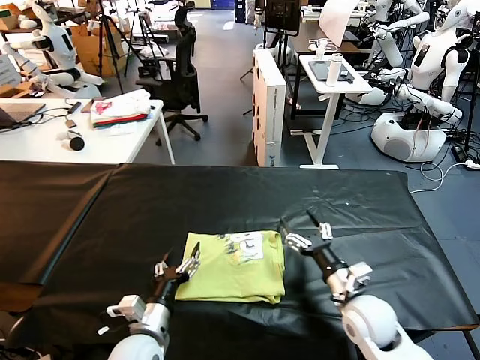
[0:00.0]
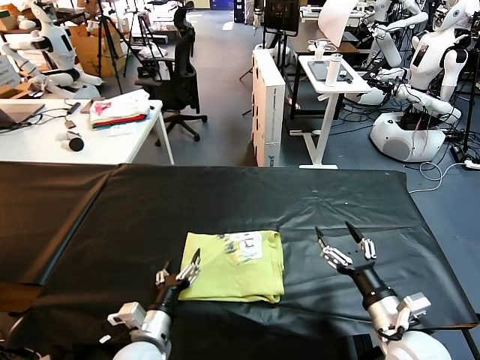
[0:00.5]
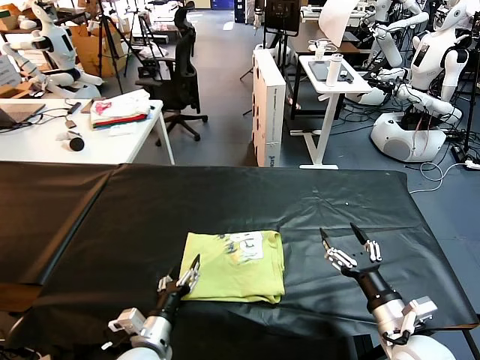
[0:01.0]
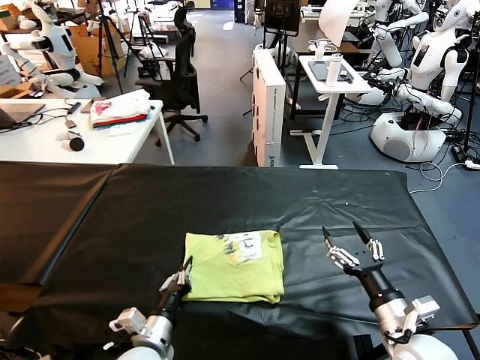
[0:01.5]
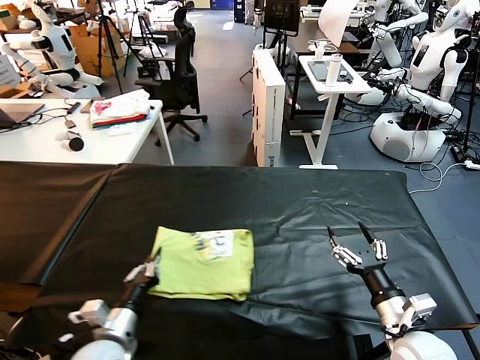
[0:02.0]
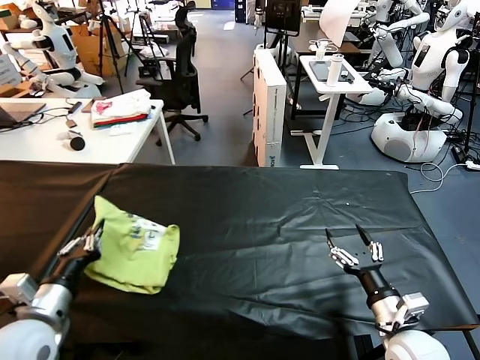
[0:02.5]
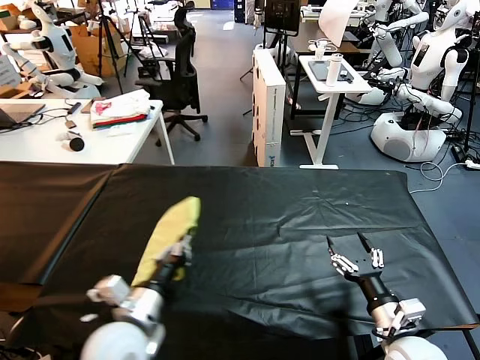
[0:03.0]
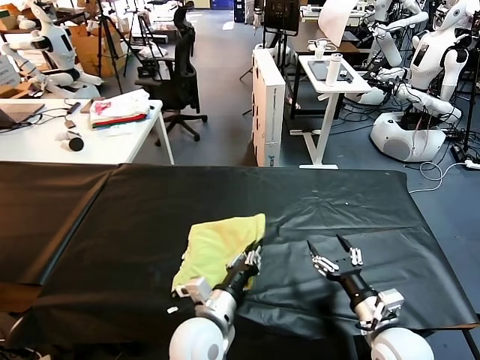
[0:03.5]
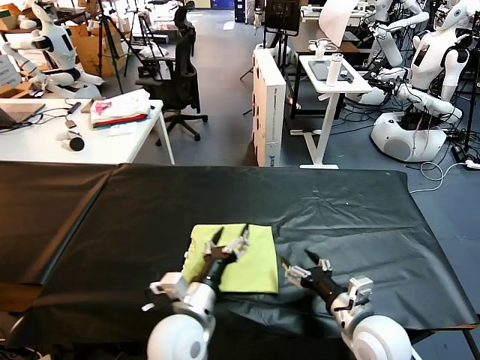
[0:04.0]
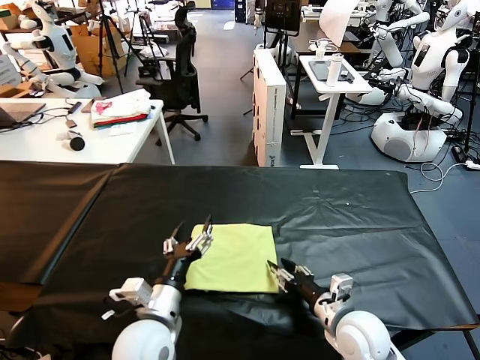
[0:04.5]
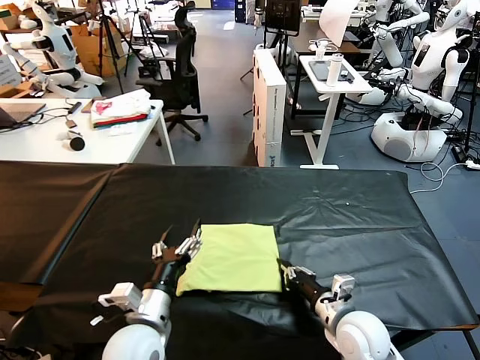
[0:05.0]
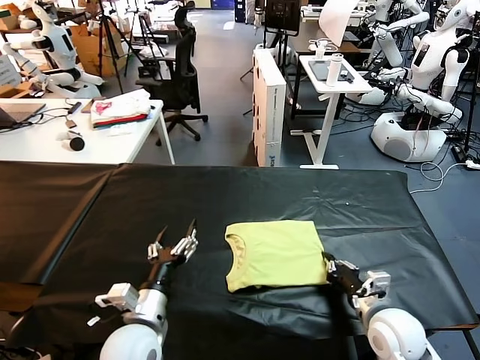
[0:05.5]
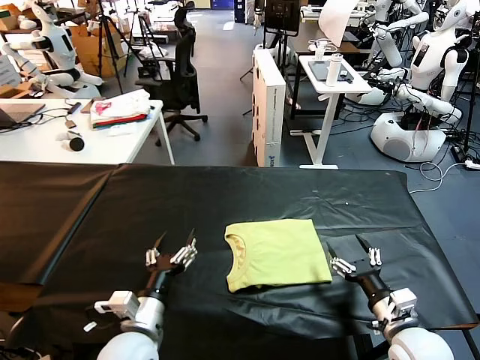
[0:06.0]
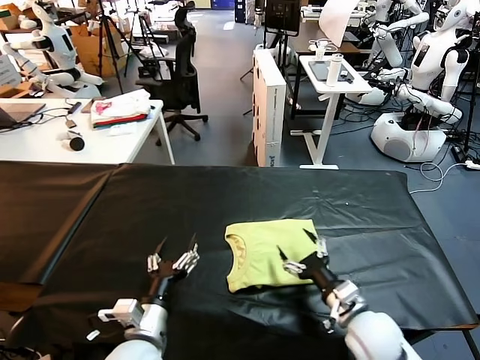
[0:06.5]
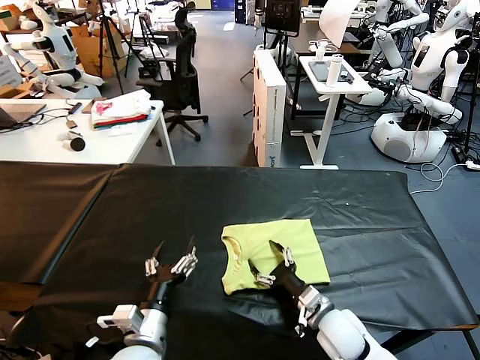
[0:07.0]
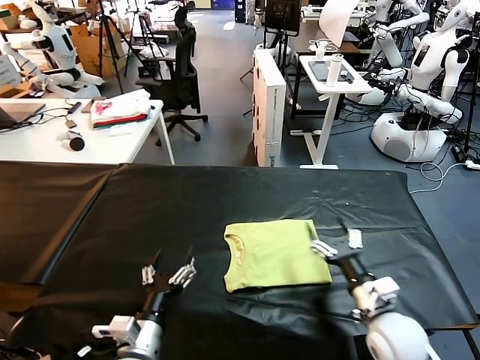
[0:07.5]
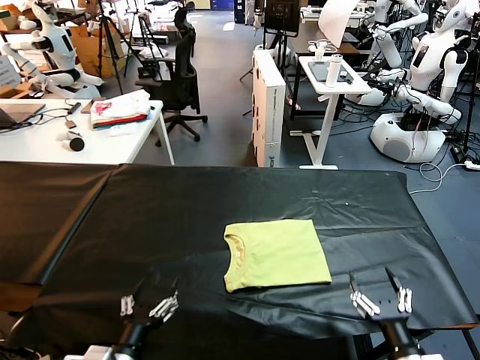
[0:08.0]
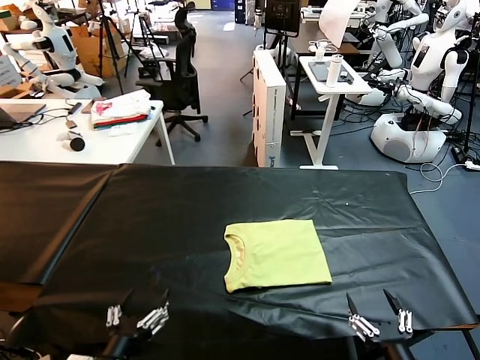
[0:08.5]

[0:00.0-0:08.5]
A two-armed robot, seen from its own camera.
Task of the whole recording: fold and organize the clothes.
Step, 0:00.0 to 0:03.5: Flip the folded clothes over with left gripper.
Step, 0:04.0 to 0:06.0: Drag the clothes to the center of the table.
0:00.0 to 0:02.0: The left gripper heads to the left, covering about 5 cm, and closes. Meanwhile the right gripper goes about 10 cm backward and to the right.
0:02.0 to 0:04.0: The right gripper shifts about 5 cm to the left. Meanwhile the left gripper moves to the right, about 15 cm, and opens up.
0:04.0 to 0:06.5: The right gripper goes to the right and returns, approximately 5 cm each way, and closes, then opens again. The left gripper travels to the left by about 10 cm.
0:06.5 to 0:08.5: The right gripper shifts approximately 15 cm backward. Meanwhile the left gripper is displaced backward by roughly 10 cm.

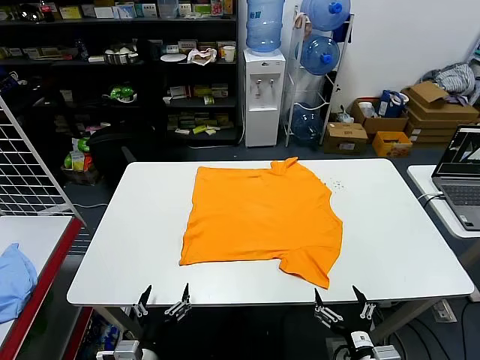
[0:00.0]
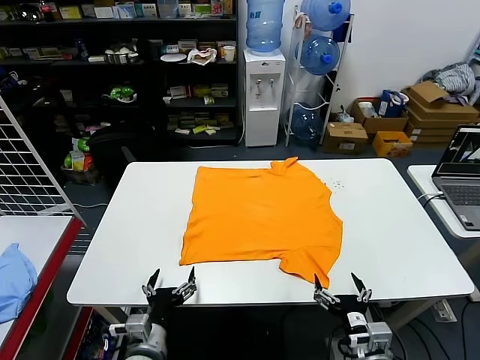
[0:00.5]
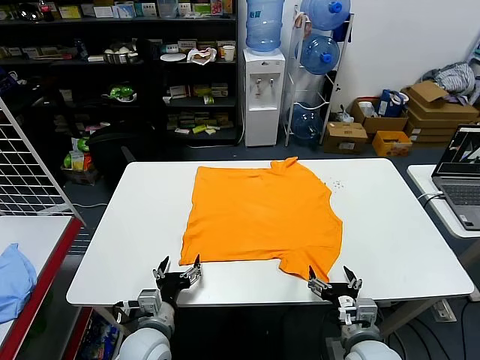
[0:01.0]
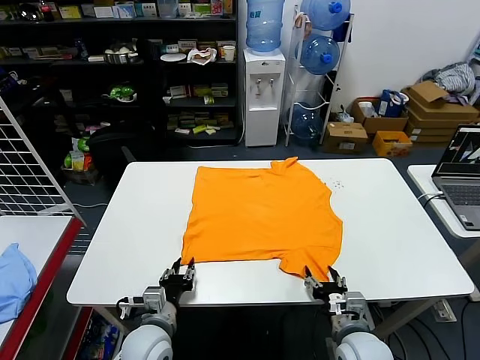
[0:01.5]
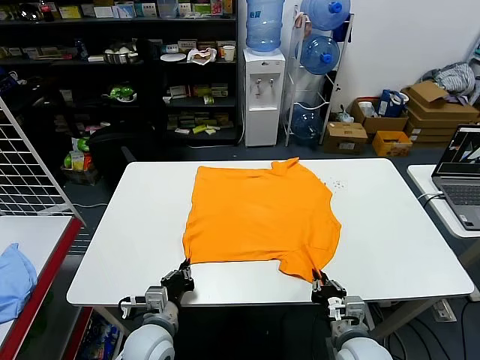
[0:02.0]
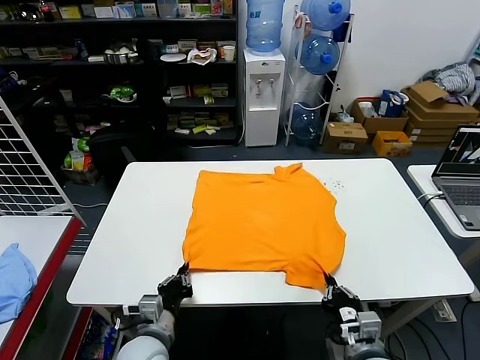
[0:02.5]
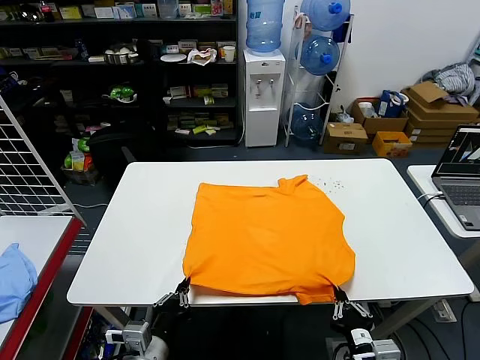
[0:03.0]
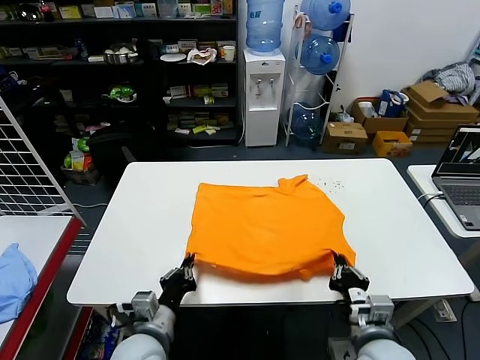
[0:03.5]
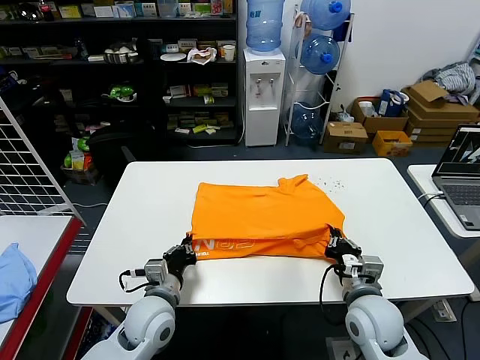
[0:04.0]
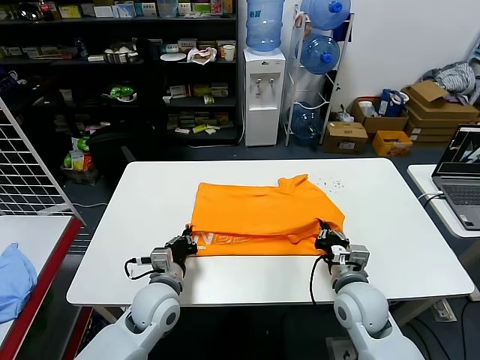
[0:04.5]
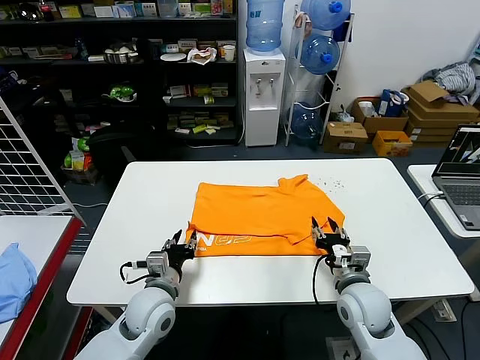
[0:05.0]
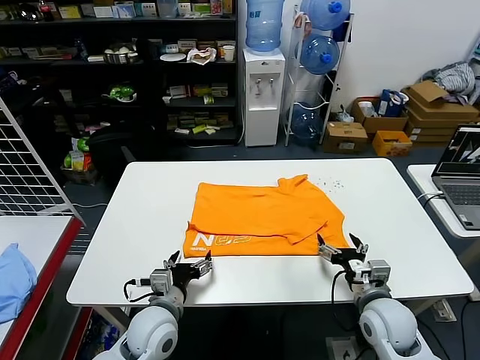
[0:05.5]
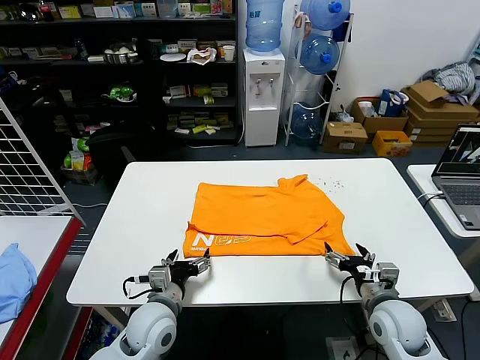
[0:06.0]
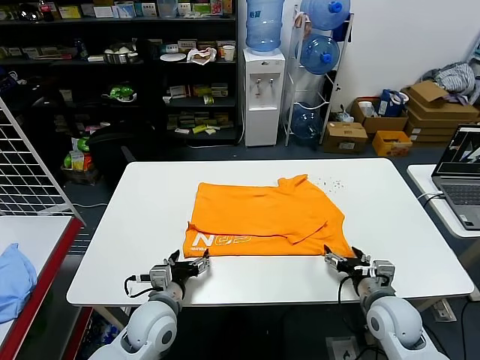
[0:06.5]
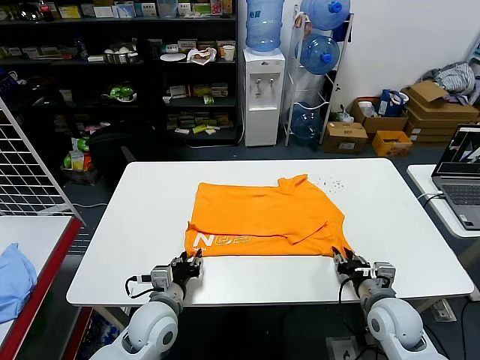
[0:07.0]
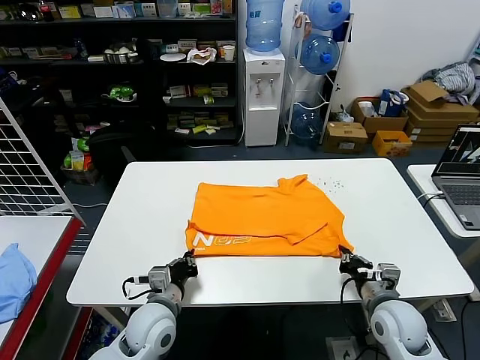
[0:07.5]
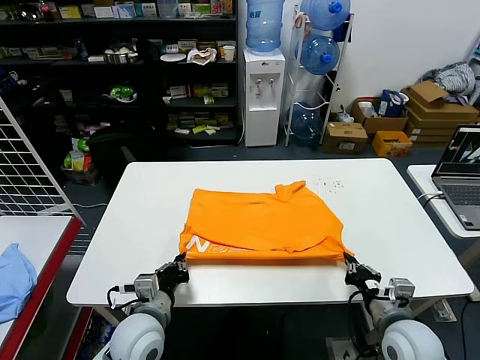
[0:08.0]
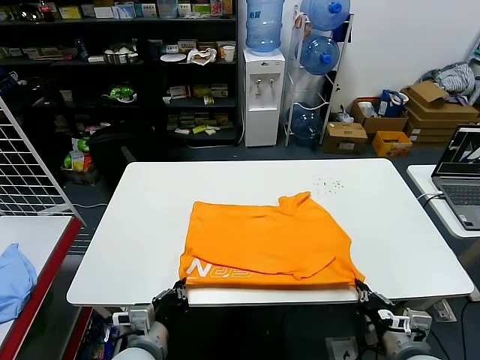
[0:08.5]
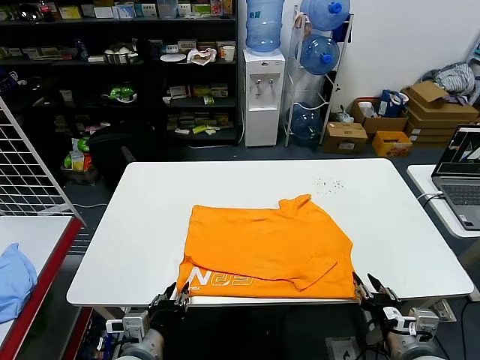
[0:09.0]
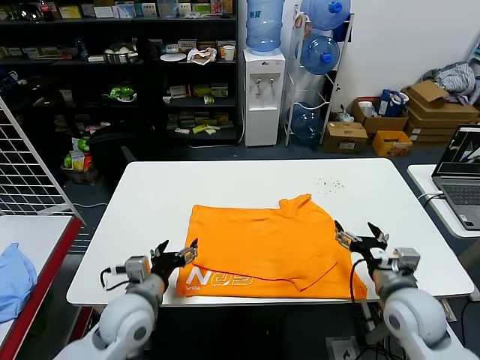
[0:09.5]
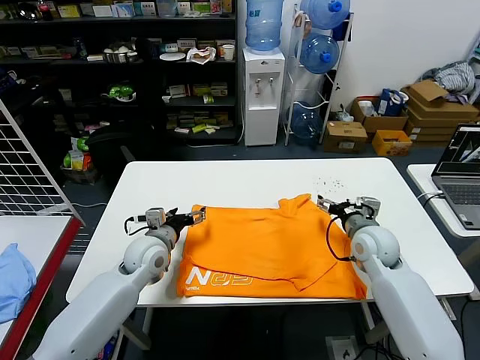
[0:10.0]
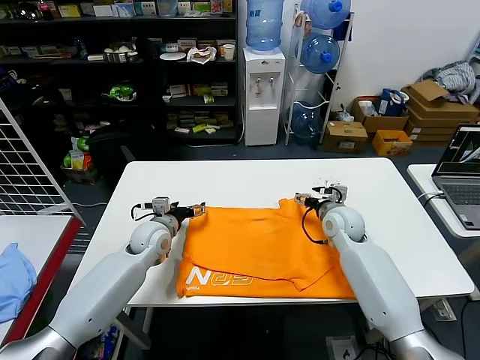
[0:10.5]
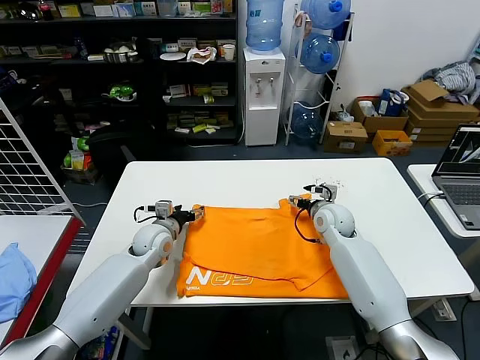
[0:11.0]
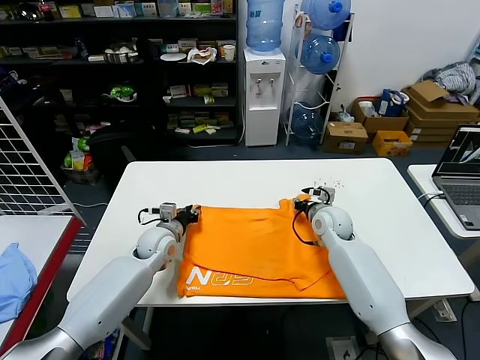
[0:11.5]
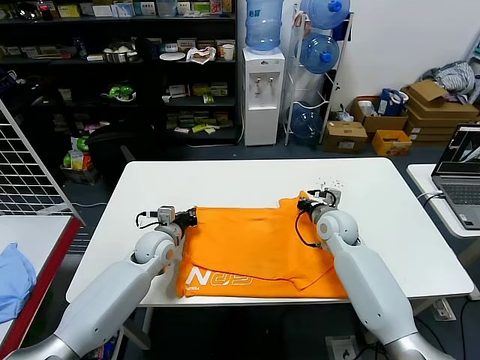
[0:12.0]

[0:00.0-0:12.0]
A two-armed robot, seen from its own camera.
Task of the whole recording: fold and organize the clothes.
Step, 0:00.0 to 0:01.5: use both grippers simultaneously to clamp the lower edge of the clothing fabric.
Step, 0:02.0 to 0:04.5: use both grippers to drag the lower edge of the fabric forward and fold it over the upper edge.
Step, 0:05.0 to 0:09.0: Drag the clothes downward with both gripper.
Step, 0:09.5 to 0:11.5: use both grippers simultaneously to clamp the upper edge of the clothing fabric.
0:02.0 to 0:04.0: The right gripper heads forward and upward, covering some 10 cm. Meanwhile the left gripper moves roughly 10 cm backward and comes back.
0:04.0 to 0:06.0: The right gripper travels to the right by some 5 cm, and opens up; the left gripper opens its fingers.
0:06.0 to 0:08.0: The right gripper moves backward, roughly 5 cm, and closes. The left gripper closes its fingers.
0:08.0 to 0:10.0: Both grippers travel together forward, about 20 cm. The right gripper opens up. Meanwhile the left gripper opens its fingers.
0:10.0 to 0:12.0: The right gripper shifts by about 5 cm, and closes; the left gripper shifts by some 5 cm, and closes its fingers.

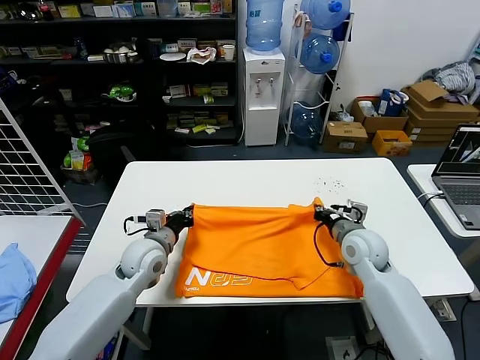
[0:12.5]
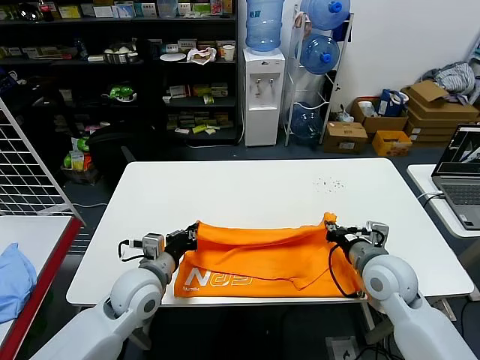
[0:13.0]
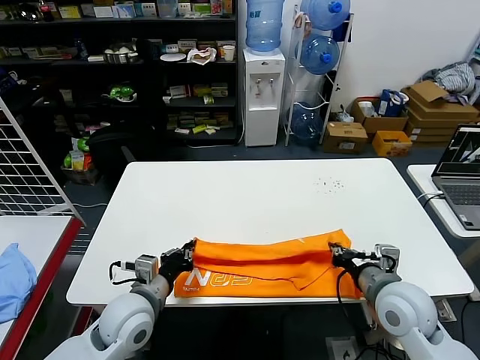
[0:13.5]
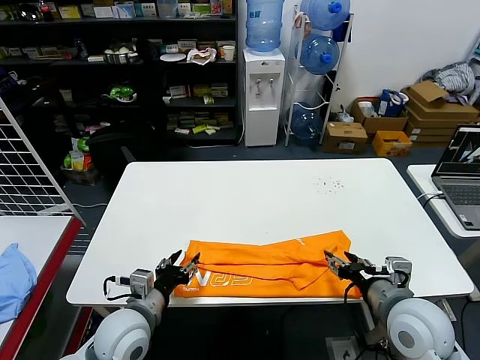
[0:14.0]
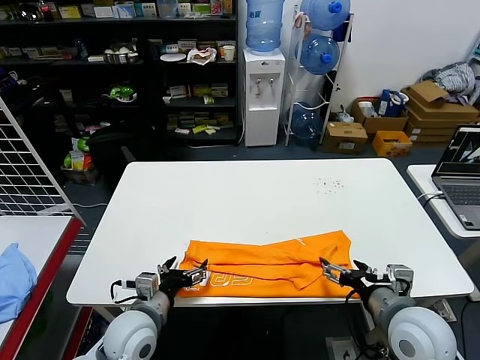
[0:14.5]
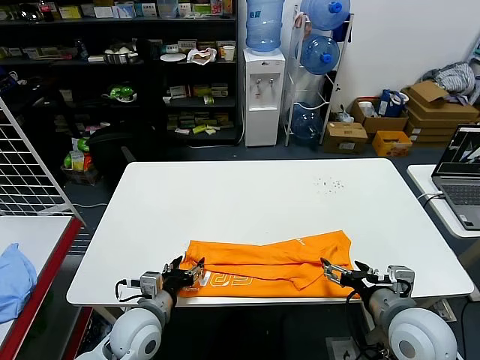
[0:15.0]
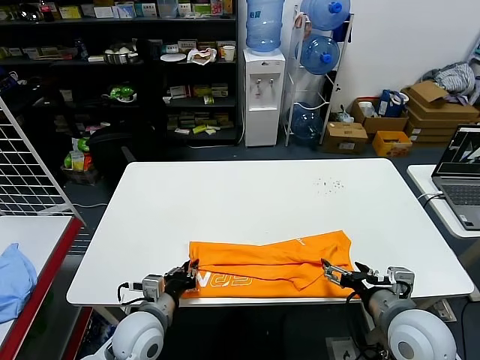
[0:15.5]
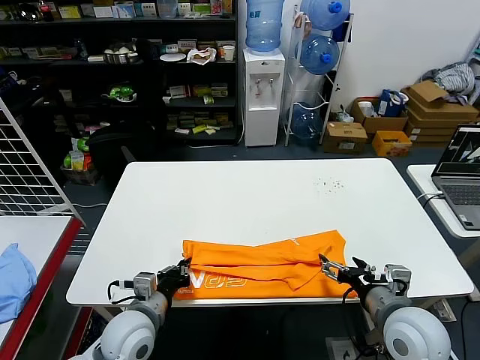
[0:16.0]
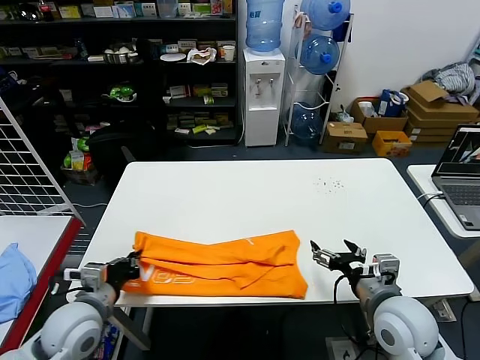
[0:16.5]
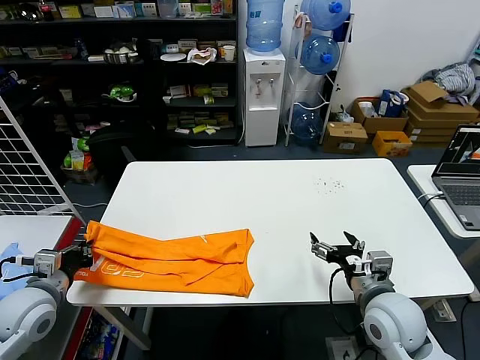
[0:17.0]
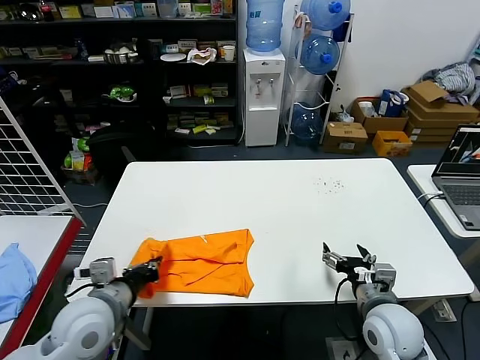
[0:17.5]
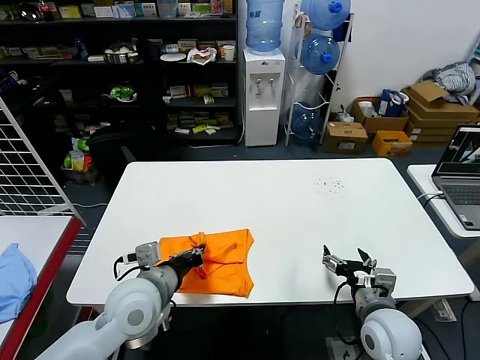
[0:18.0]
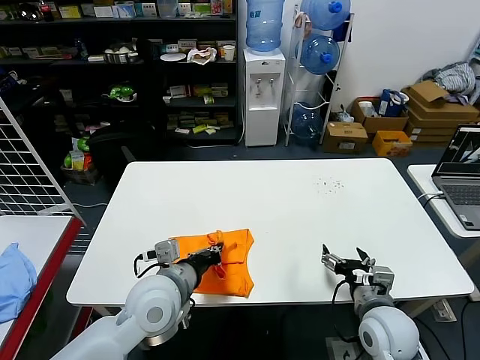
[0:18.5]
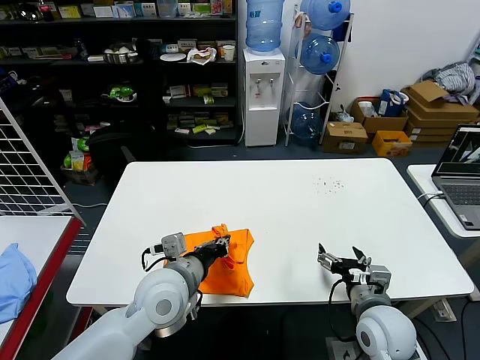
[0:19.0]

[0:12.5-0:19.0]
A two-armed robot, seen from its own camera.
Task of the whole recording: fold and organize the clothes.
Step, 0:12.5 to 0:13.5: use both grippers to drag the upper edge of the fabric backward and fold it over the lower edge.
Step, 0:14.0 to 0:15.5: use the left gripper to clamp the left edge of the fabric.
0:12.5 to 0:14.5: The grippers both shift backward by approximately 15 cm. The right gripper opens up. Meanwhile the left gripper opens its fingers.
0:14.5 to 0:17.0: The left gripper travels to the left by approximately 20 cm, and closes.
0:17.0 to 0:19.0: The left gripper heads to the right, covering about 25 cm.
